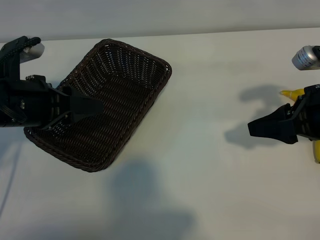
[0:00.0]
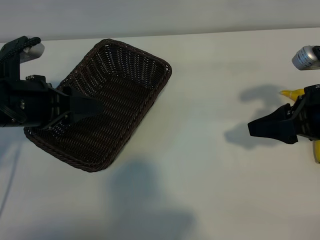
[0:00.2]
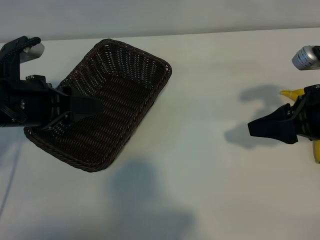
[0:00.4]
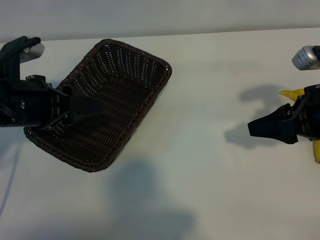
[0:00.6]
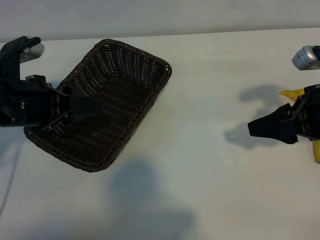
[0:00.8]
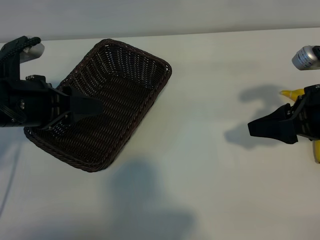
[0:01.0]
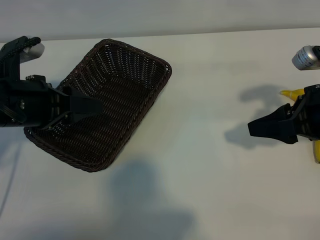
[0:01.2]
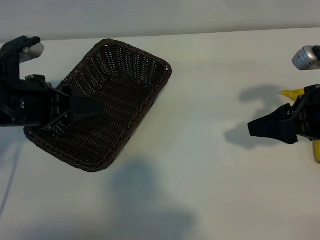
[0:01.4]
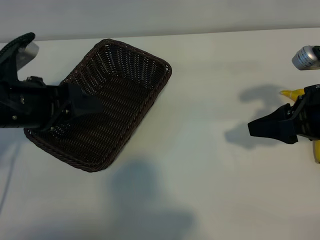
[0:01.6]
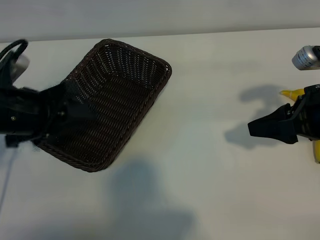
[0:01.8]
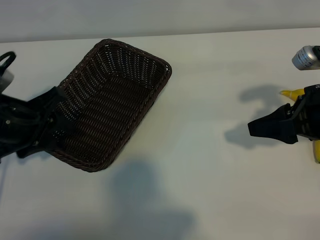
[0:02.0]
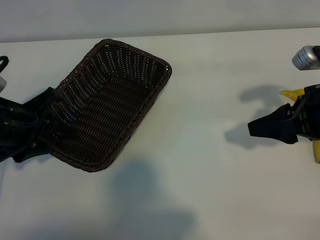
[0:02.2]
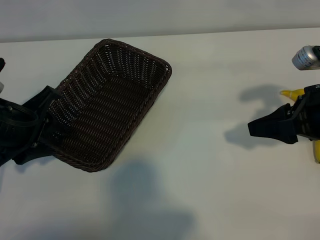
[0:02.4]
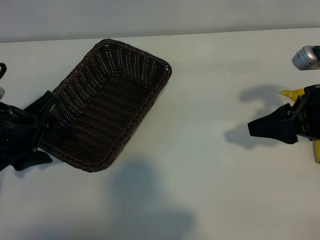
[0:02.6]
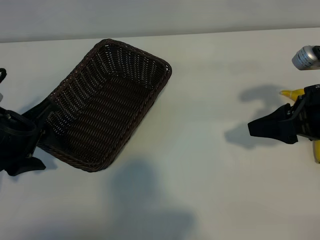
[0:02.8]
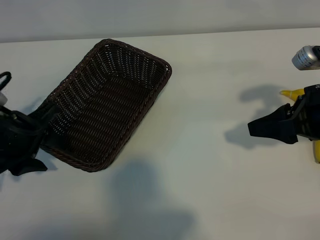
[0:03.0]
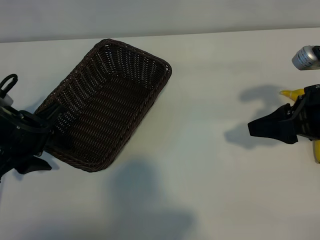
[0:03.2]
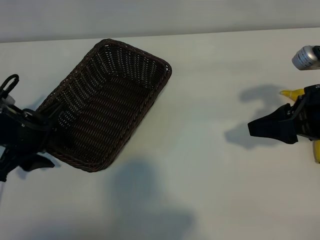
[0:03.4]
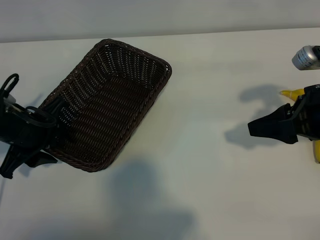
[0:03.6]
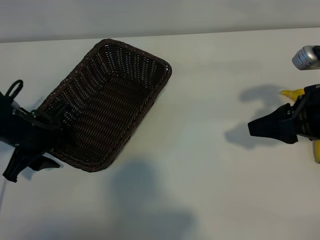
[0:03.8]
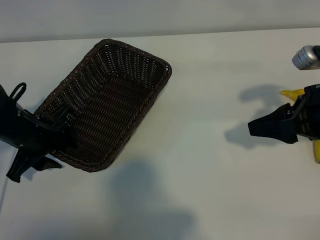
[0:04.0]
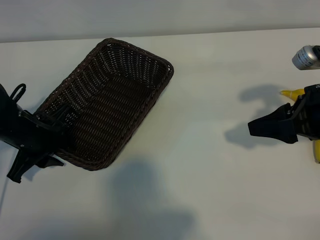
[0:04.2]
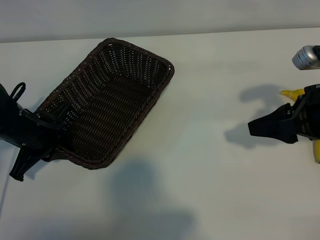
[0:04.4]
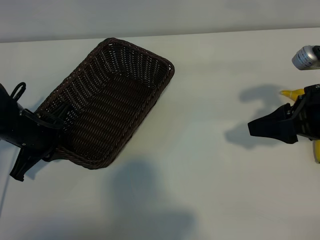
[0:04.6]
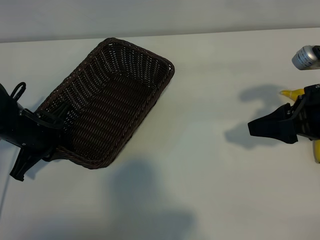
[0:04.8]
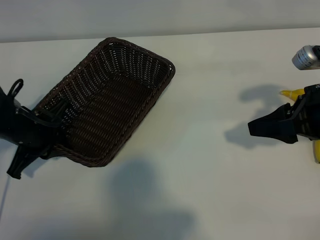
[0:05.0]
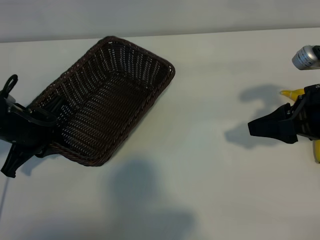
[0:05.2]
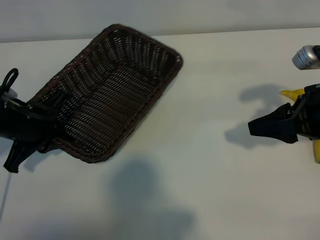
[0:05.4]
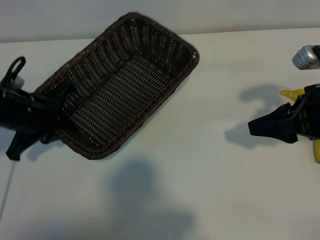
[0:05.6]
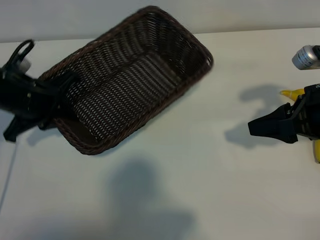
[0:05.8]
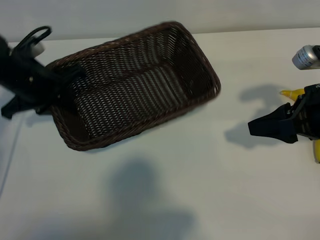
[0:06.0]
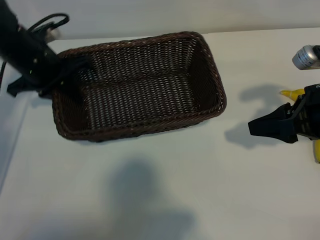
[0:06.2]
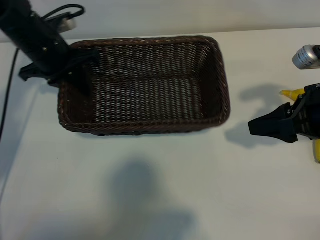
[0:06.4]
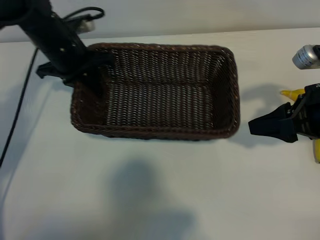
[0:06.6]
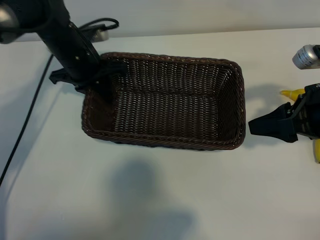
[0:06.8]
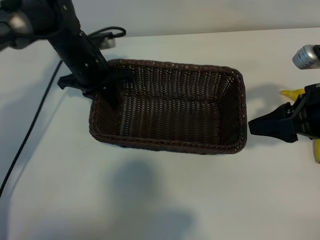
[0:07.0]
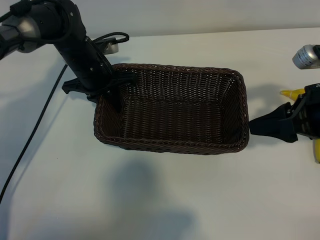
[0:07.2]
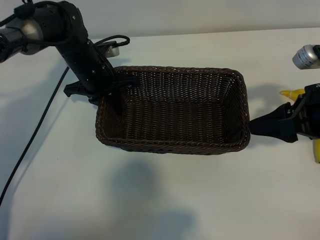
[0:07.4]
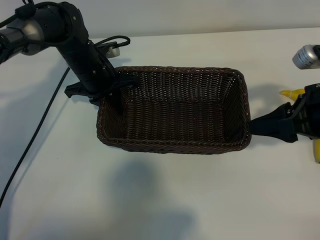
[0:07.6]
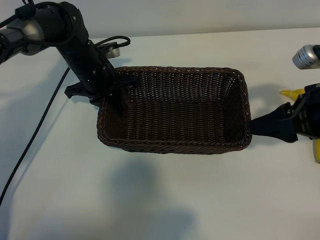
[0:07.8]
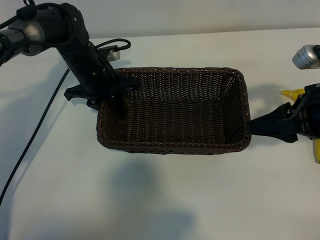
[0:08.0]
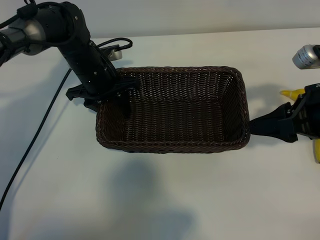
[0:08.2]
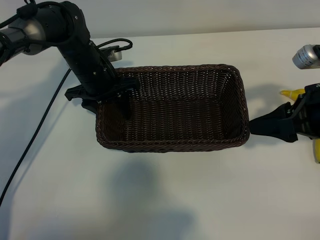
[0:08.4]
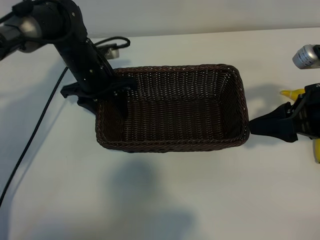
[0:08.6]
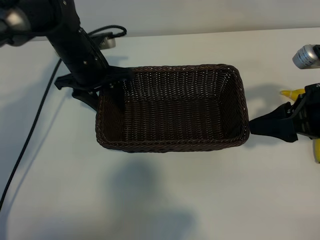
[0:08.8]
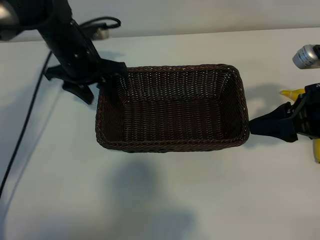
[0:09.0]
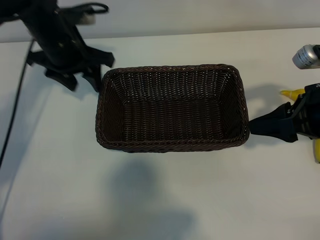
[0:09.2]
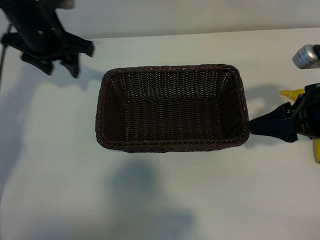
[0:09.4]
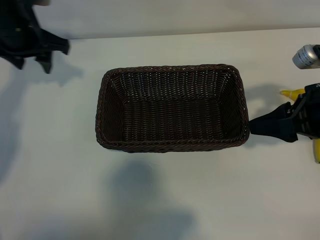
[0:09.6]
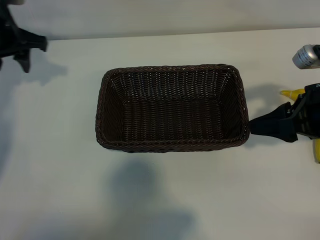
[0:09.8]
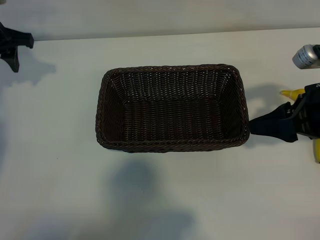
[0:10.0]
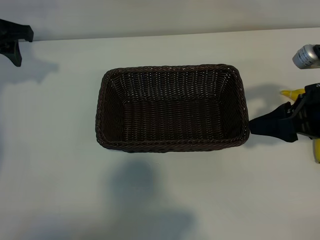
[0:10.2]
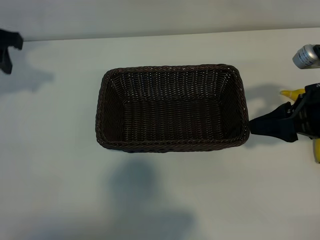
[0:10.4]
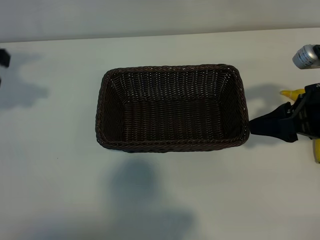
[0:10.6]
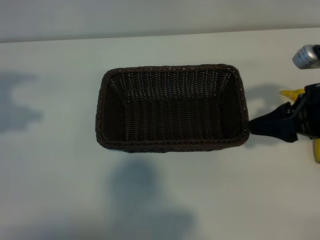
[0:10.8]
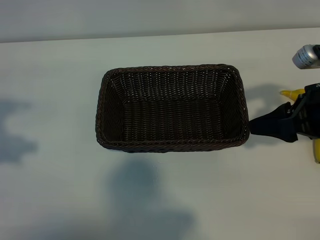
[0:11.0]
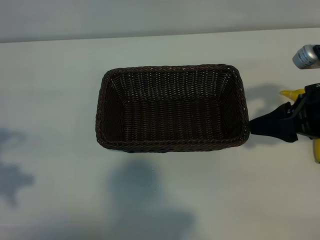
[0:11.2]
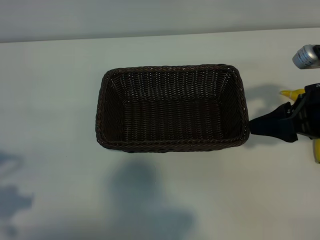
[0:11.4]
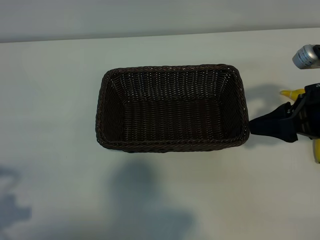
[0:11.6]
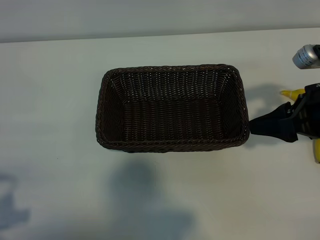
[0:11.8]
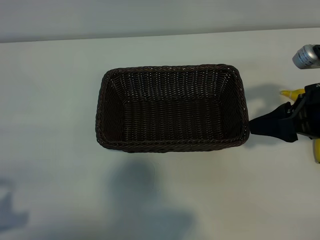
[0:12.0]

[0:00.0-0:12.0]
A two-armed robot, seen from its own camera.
Task of the whole recording: pick up the banana and put it into the basket.
Step, 0:01.4 to 0:04.4: Grasp the basket with the left gripper.
Step, 0:04.8 to 0:08.8: Place the basket in the center of the table with the left gripper.

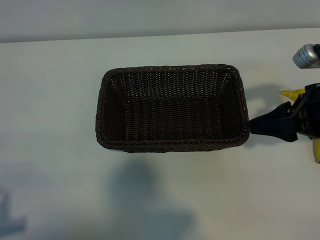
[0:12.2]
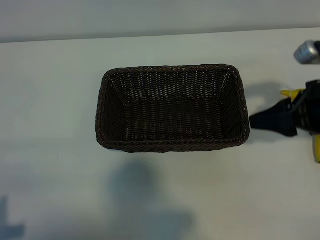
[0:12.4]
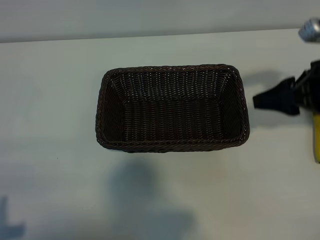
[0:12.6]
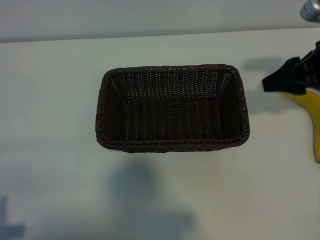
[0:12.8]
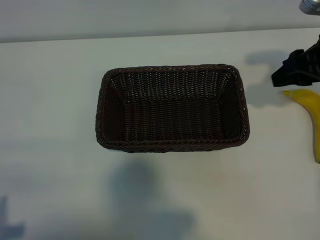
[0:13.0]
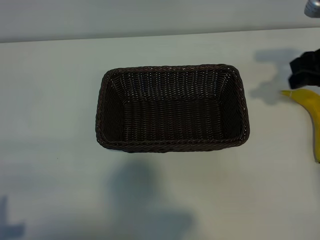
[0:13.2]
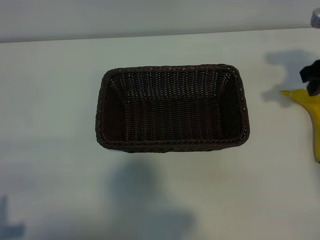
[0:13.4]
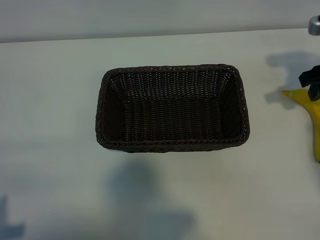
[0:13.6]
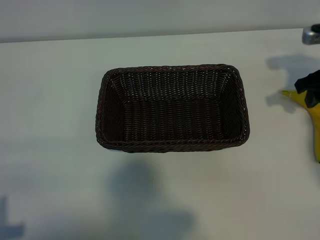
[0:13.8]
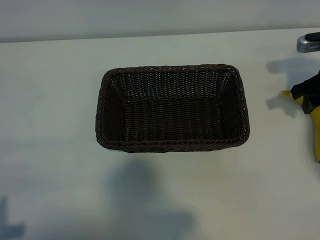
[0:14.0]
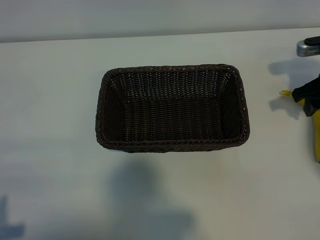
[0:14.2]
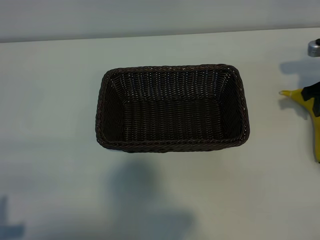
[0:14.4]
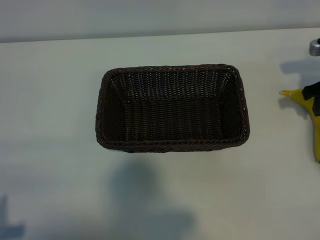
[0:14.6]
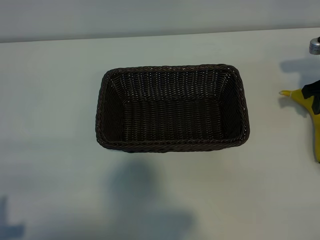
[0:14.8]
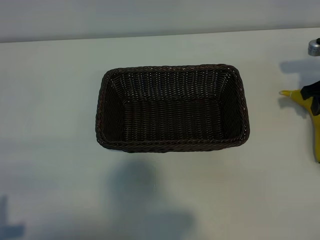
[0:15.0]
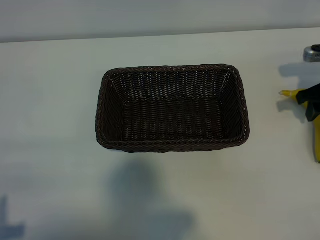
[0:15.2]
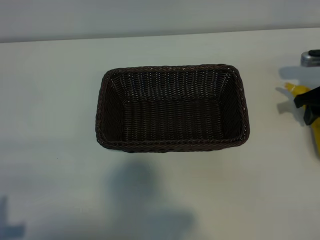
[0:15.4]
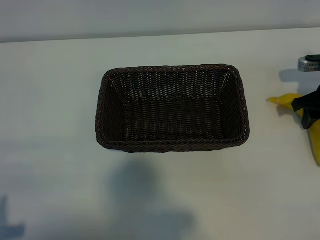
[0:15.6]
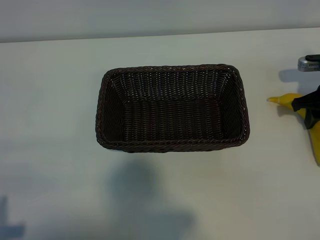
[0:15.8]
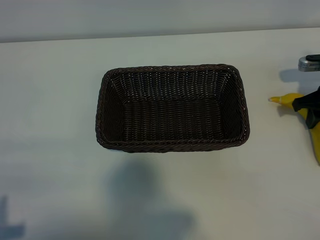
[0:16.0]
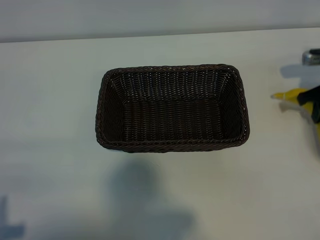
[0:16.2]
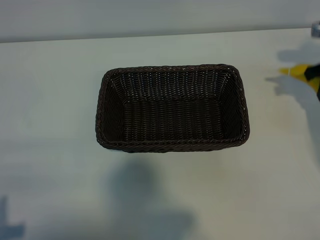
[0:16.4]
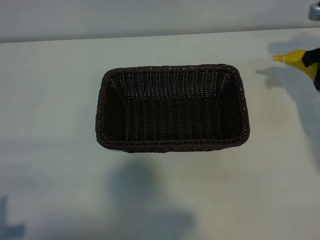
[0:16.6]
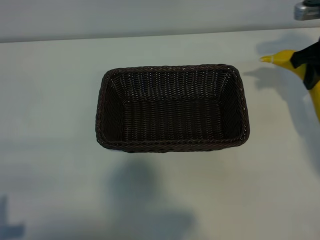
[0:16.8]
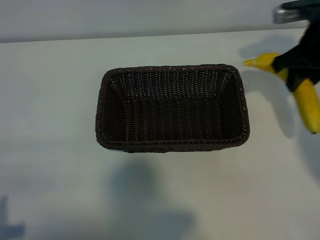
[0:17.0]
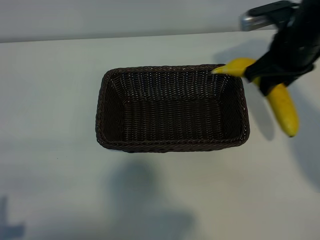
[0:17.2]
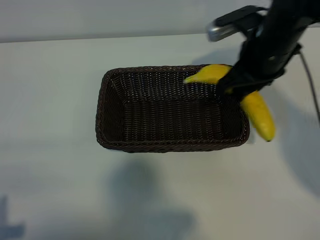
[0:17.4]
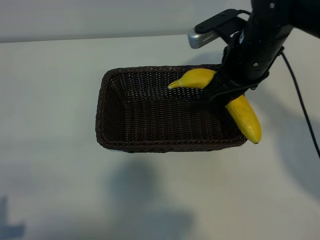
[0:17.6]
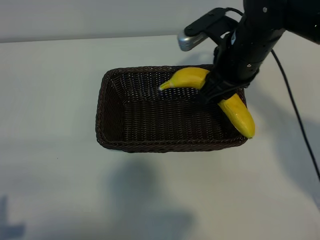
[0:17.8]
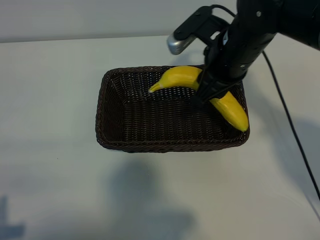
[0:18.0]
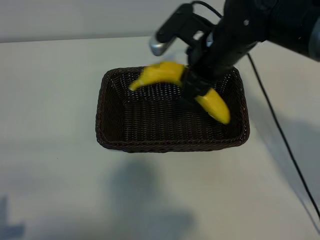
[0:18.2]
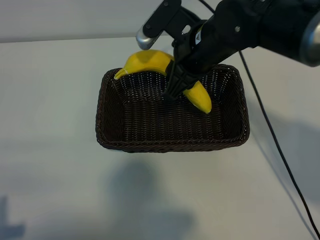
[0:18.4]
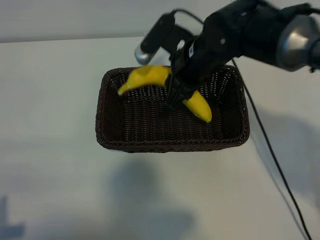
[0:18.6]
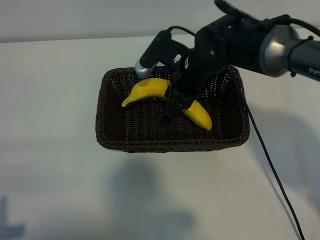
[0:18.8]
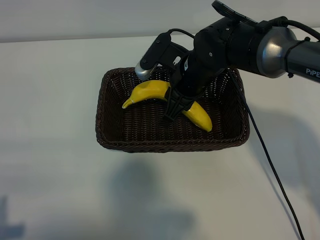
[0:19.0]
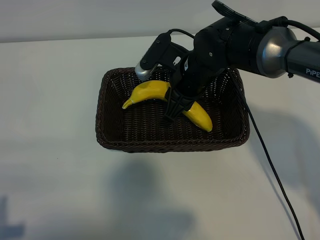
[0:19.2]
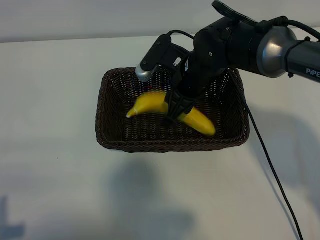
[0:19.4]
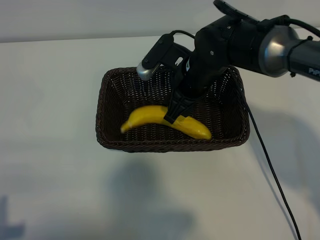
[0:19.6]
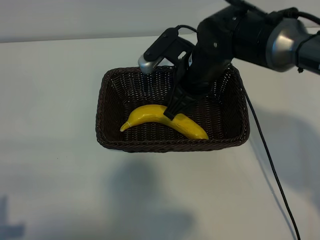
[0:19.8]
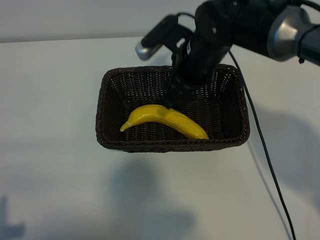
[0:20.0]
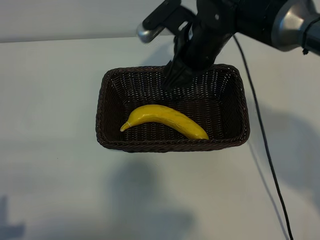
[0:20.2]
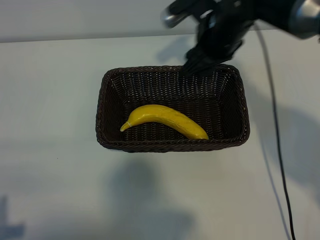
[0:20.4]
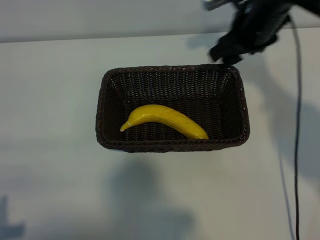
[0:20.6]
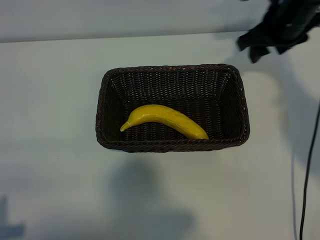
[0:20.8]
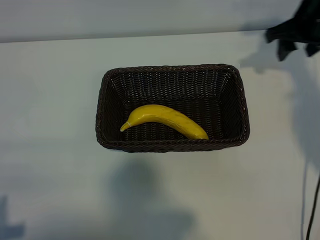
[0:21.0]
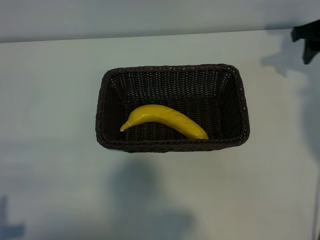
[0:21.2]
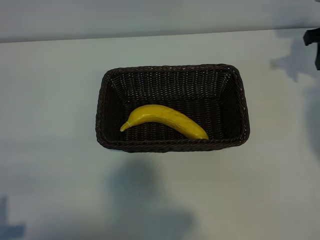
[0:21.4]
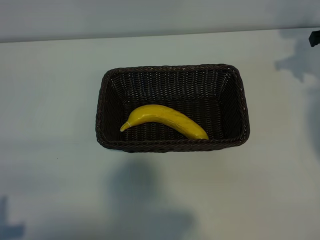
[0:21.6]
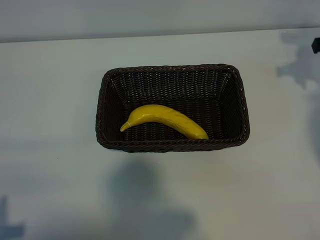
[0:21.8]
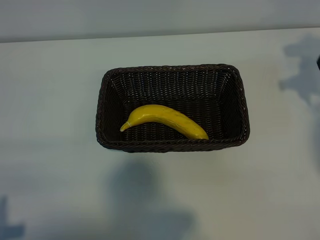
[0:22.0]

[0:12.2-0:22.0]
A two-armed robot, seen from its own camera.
Task of the whole recording: pick up the banana and put it into the basket.
Step, 0:12.2 to 0:15.8: Grasp the banana with right gripper.
Step, 0:16.0 to 0:19.8: Place the banana in the basket with right gripper.

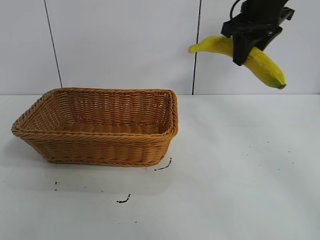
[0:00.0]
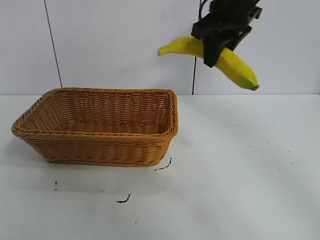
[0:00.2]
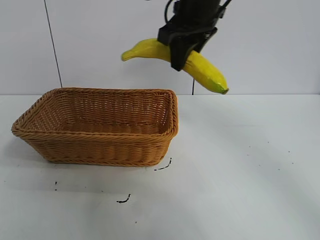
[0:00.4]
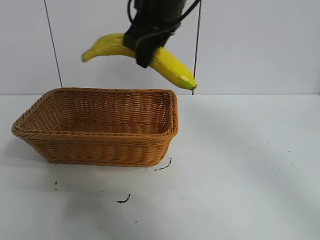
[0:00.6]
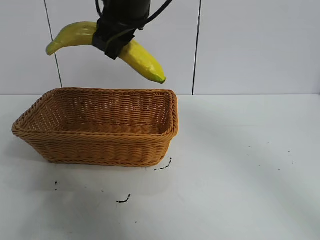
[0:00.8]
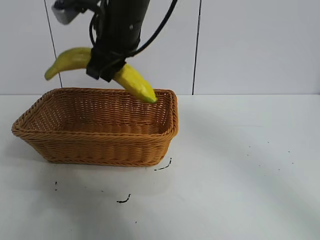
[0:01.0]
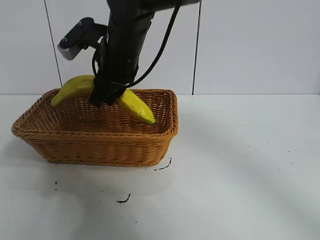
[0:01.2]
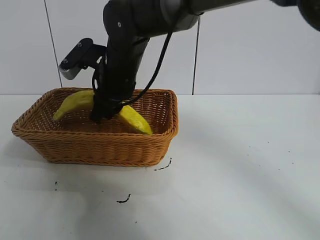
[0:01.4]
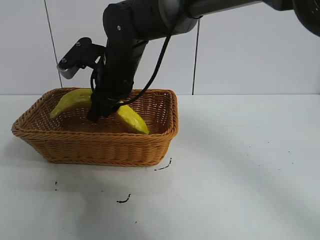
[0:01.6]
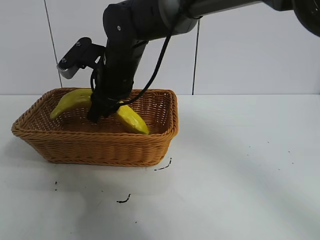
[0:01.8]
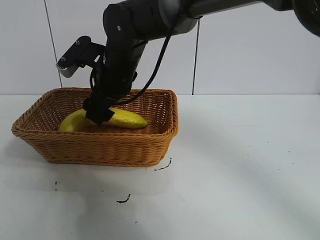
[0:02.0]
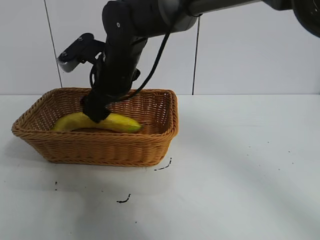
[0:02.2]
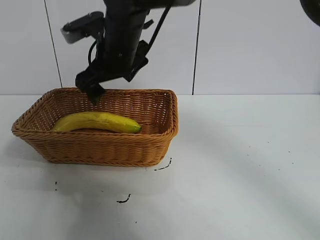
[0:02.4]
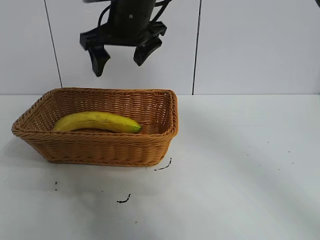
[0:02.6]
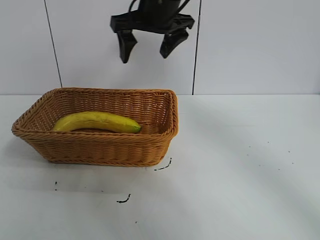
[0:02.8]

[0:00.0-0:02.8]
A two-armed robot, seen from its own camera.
Task of the whole recording: pick up the banana and put it into the basket.
Step, 0:00.0 to 0:02.0: Place the banana in the basket with right gripper.
